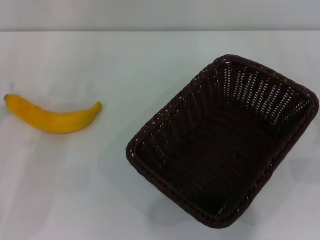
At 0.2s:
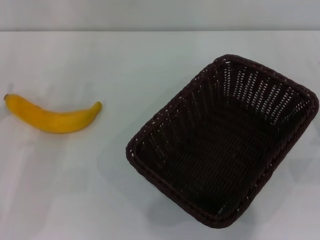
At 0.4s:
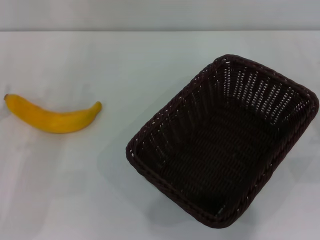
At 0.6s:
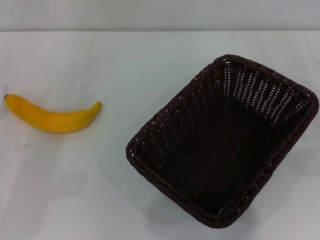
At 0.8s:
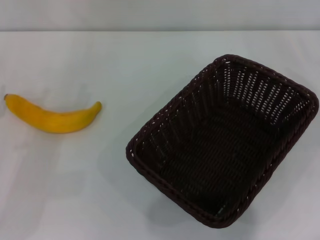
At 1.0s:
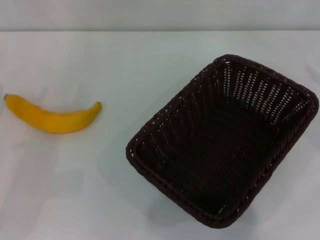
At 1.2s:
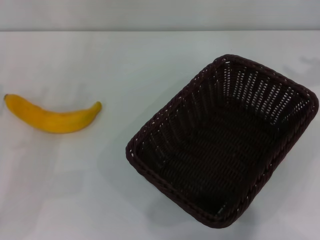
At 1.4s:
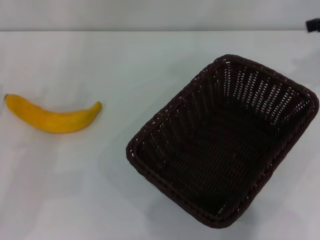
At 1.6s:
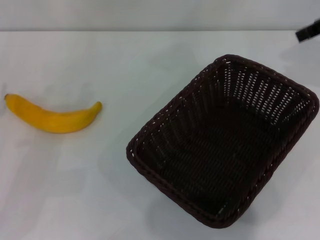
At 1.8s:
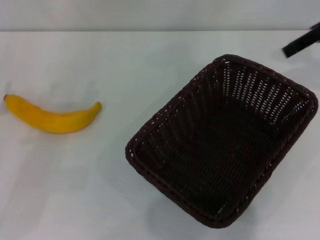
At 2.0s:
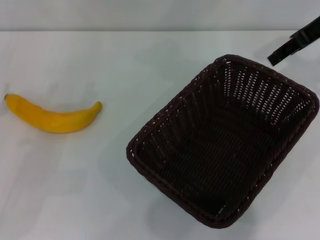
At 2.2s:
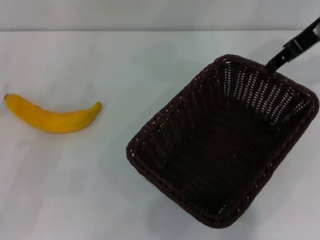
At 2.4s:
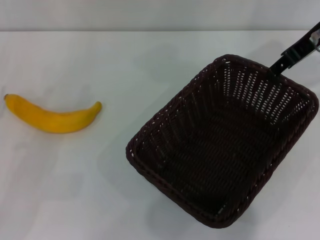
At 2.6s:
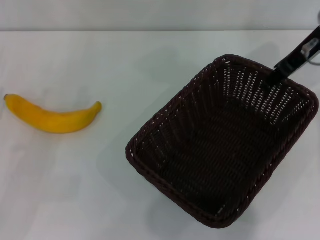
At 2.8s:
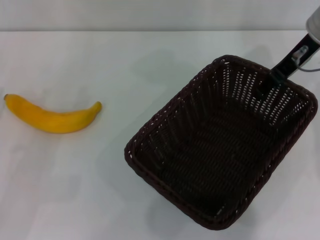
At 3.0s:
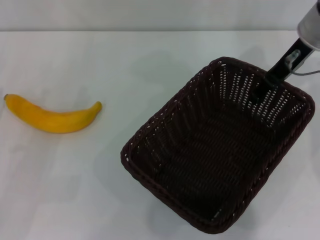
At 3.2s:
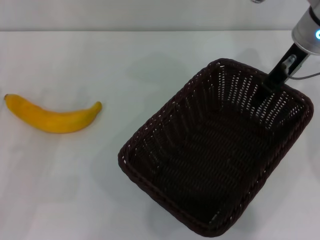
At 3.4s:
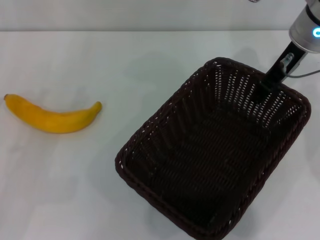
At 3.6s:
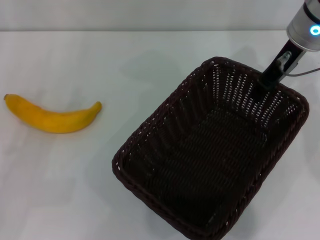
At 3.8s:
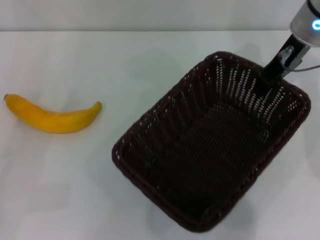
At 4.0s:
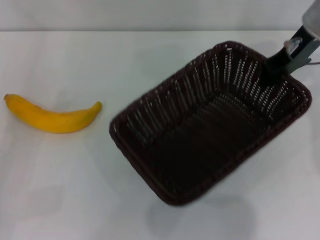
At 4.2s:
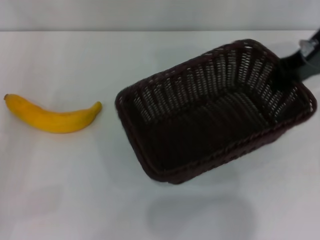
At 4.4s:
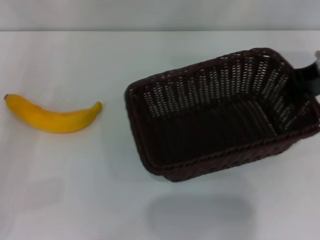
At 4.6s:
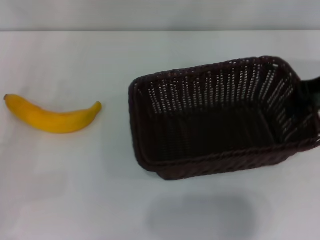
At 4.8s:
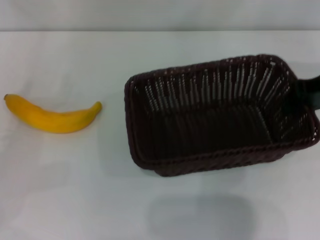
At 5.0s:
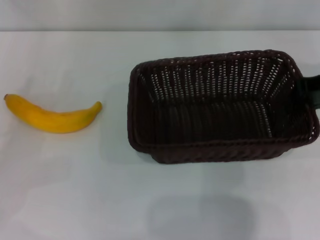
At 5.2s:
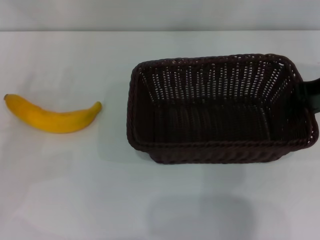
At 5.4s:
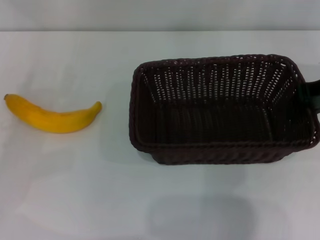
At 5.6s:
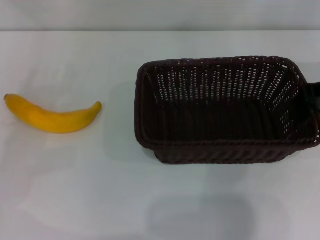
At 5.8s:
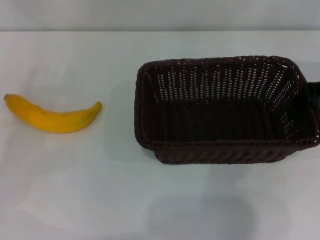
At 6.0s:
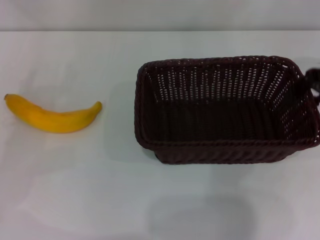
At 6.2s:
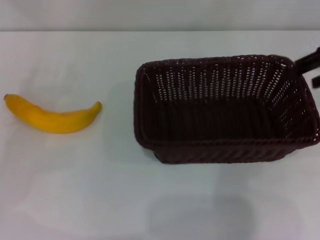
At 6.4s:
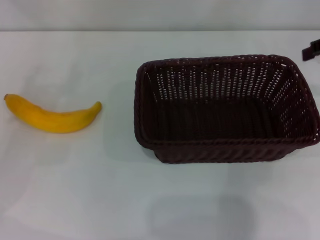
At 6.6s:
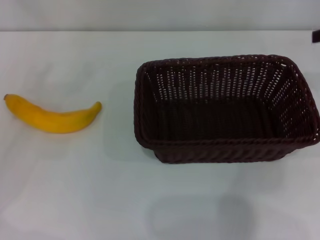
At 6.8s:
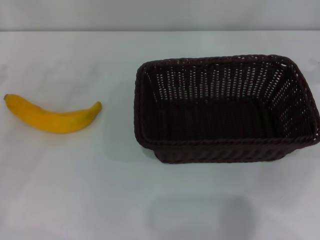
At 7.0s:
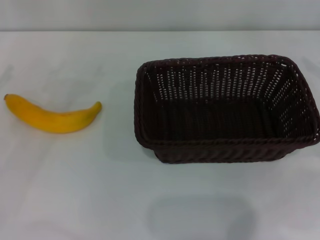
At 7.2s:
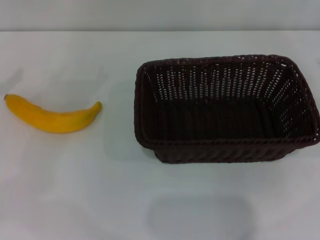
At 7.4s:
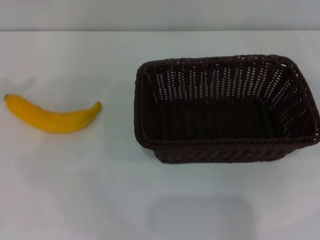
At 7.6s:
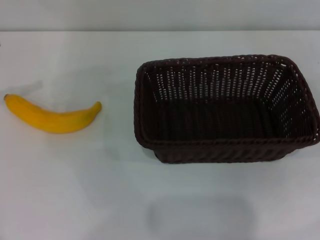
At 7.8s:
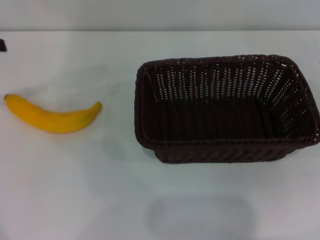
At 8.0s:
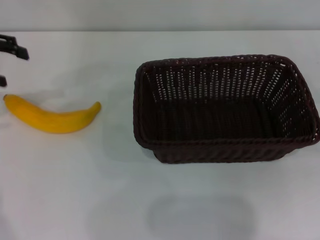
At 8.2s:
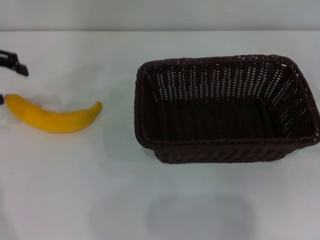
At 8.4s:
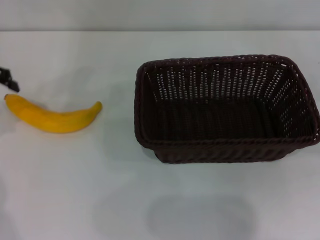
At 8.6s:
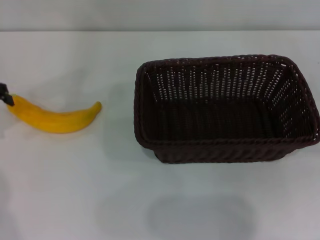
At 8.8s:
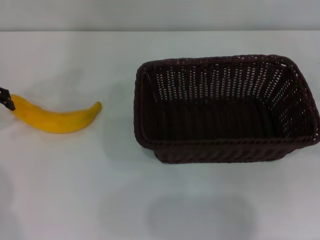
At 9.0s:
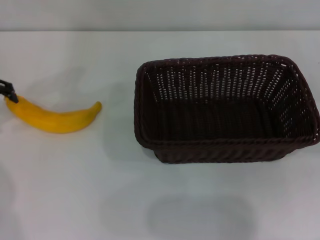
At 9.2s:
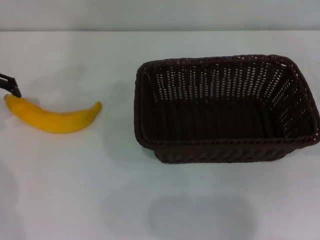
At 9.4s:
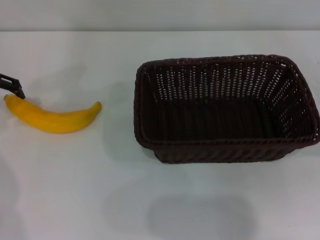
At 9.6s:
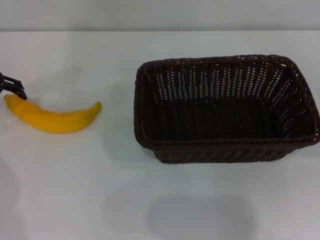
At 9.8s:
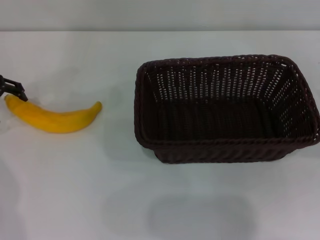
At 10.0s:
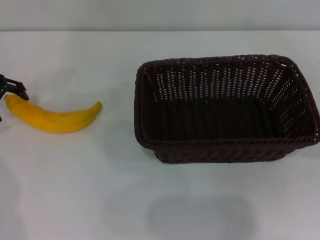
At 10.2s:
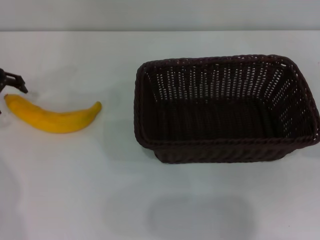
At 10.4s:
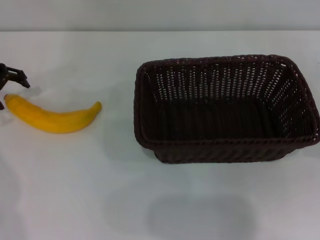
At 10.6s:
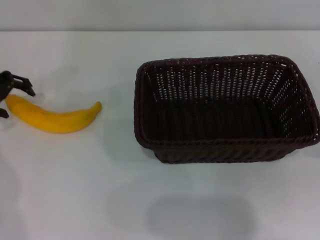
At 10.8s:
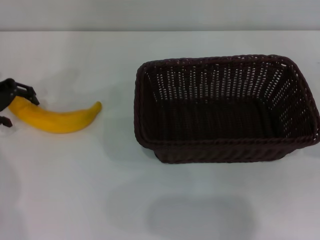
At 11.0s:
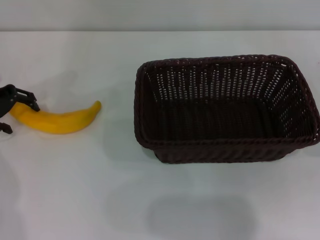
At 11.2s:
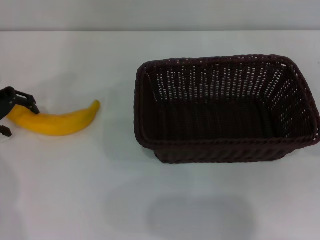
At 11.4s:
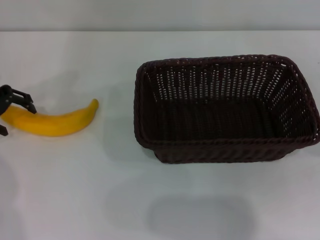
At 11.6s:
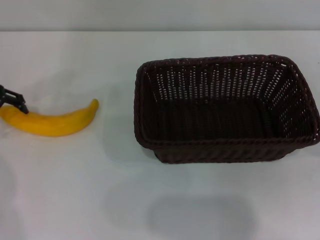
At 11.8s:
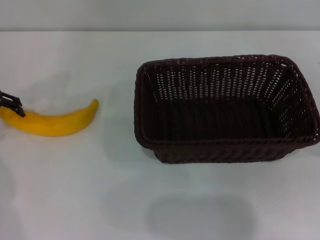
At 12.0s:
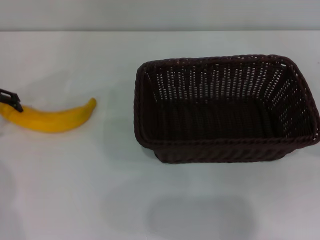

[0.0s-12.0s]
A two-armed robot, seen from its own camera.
Step, 0.0s to 3.4s: Pick up the dark basket with the right gripper.
Step, 3.6s to 6.2s: Place the dark basket in the center of view with the right gripper.
0.0s to 1.6s: The right gripper moves upward and forward, roughly 30 cm.
1.6s to 3.0s: The right gripper goes about 10 cm to the left and downward.
3.0s to 4.4s: The right gripper moves to the right, some 5 cm, and closes its fingers. Meanwhile the left gripper changes place by about 5 cm.
4.4s to 6.0s: The right gripper opens up. The left gripper heads forward, covering approximately 5 cm.
6.0s to 7.6s: The right gripper shifts about 20 cm to the right, downward and backward, and opens.
9.0s to 12.0s: The grippers stay close to where they were, moving slightly.

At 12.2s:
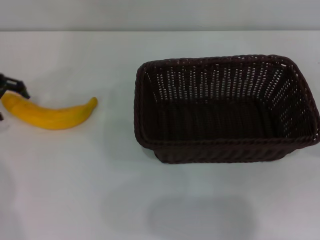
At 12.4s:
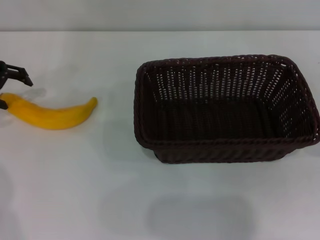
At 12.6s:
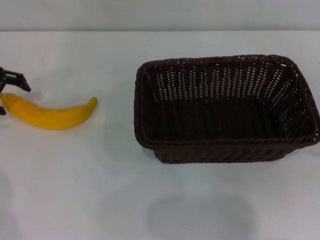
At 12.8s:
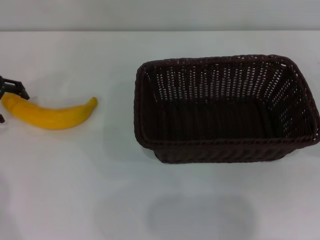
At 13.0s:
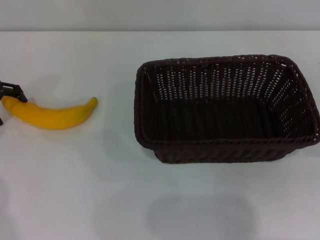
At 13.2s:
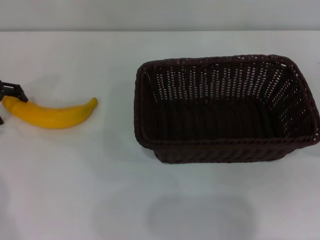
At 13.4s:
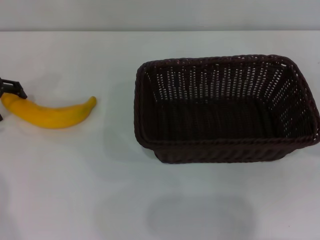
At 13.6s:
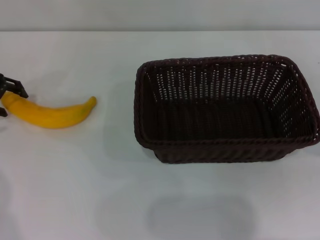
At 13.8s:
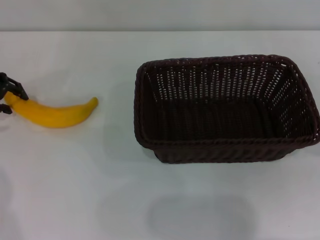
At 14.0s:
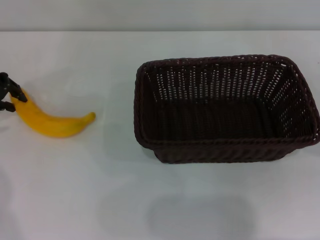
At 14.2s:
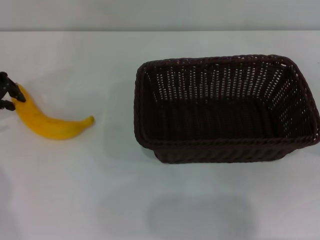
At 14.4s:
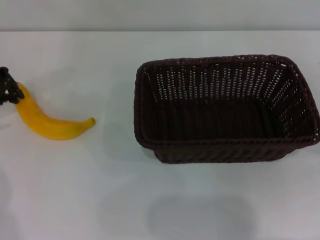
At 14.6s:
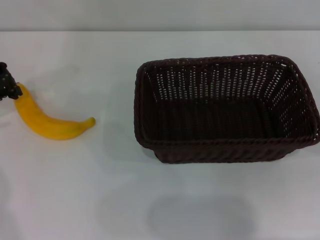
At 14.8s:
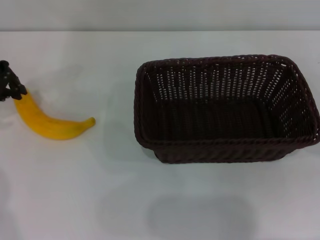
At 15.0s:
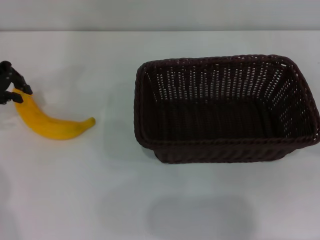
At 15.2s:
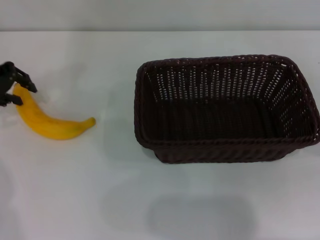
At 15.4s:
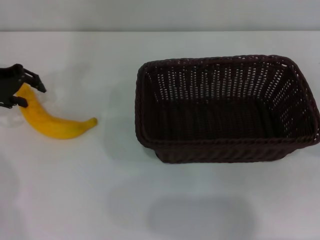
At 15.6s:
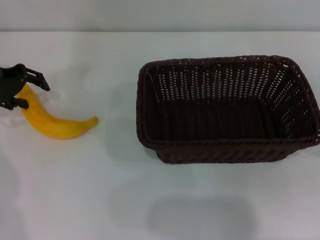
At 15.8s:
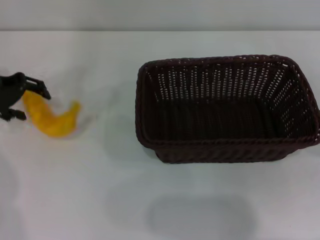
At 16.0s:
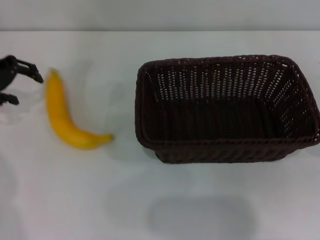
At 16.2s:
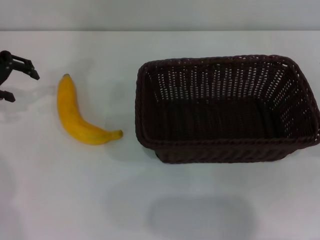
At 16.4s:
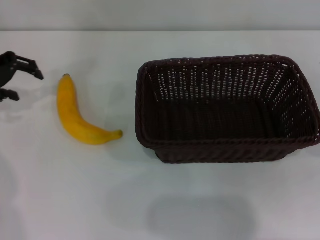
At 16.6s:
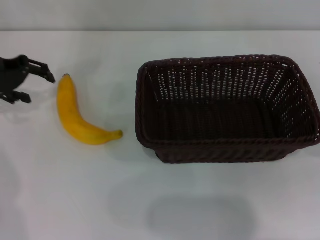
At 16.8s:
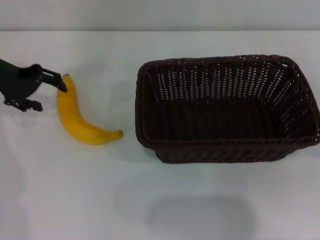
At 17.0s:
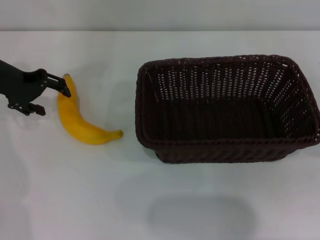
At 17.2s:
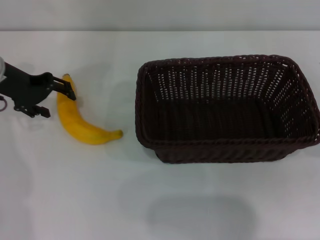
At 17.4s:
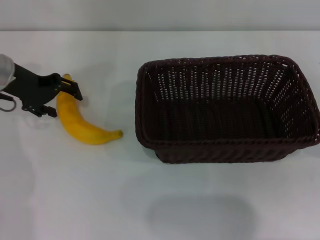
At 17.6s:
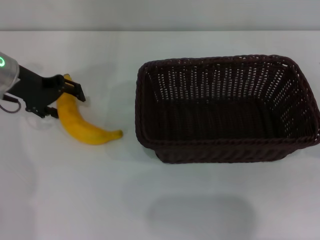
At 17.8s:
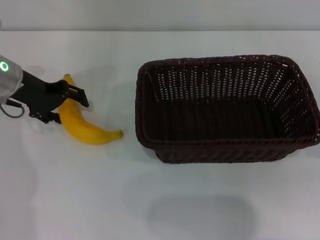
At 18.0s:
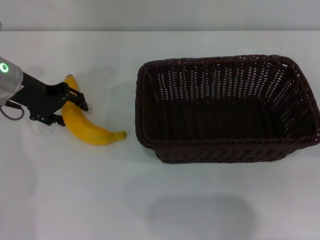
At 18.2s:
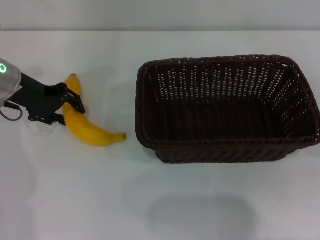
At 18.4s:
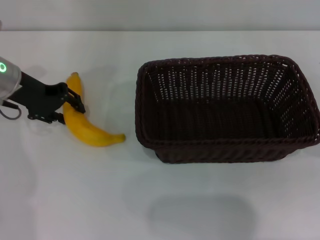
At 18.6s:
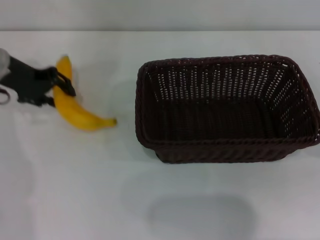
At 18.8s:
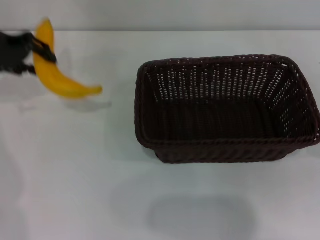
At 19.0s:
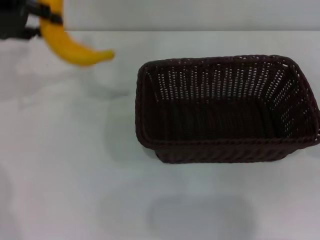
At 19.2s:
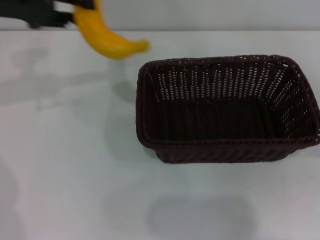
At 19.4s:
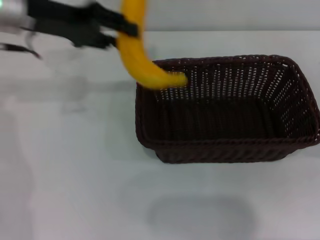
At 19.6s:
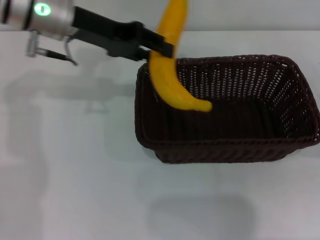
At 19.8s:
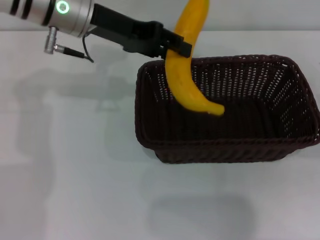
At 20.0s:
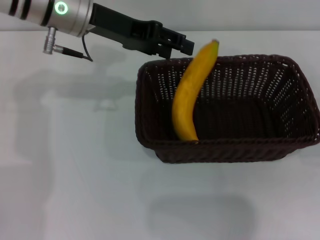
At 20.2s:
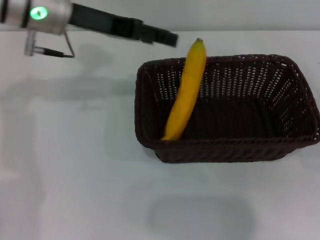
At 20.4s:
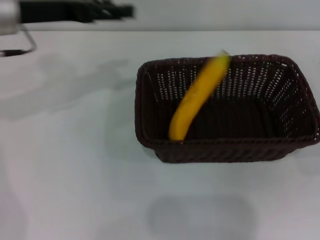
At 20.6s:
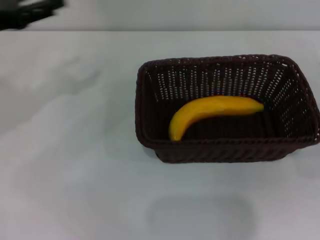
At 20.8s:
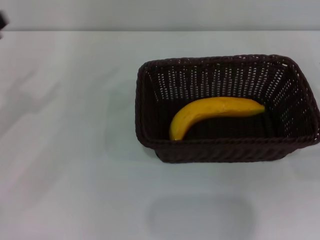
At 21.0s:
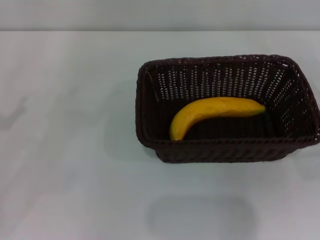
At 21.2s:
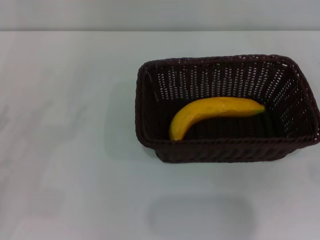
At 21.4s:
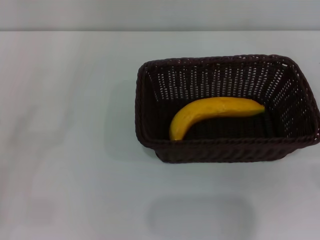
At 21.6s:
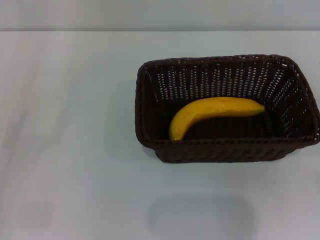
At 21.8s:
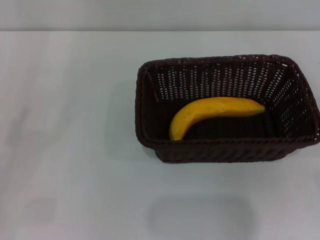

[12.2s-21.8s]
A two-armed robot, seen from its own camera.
Step, 12.2s to 18.6s: Pick up the banana with the left gripper.
Step, 18.8s to 20.0s: Place the banana into the dark basket with the left gripper.
13.8s to 15.4s: The left gripper closes and opens again.
15.4s to 17.0s: The left gripper opens its fingers.
17.0s to 18.6s: The left gripper closes its fingers.
18.6s to 20.2s: The left gripper shifts some 10 cm to the right and upward, and opens.
20.2s to 21.8s: The left gripper shifts about 35 cm backward, to the left and downward.

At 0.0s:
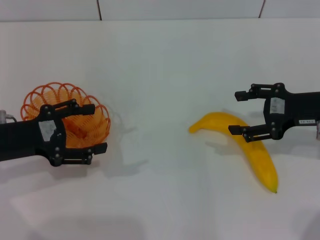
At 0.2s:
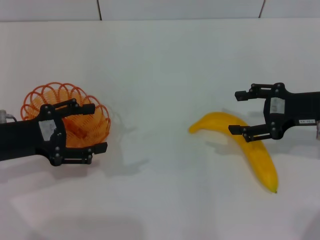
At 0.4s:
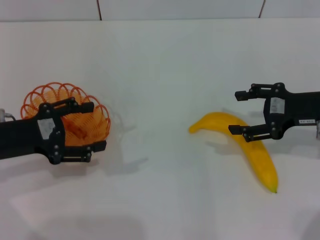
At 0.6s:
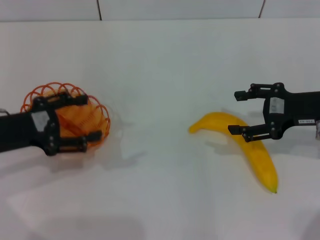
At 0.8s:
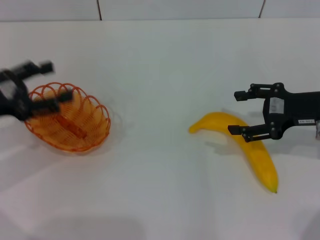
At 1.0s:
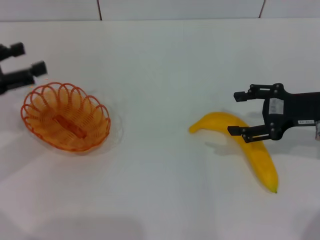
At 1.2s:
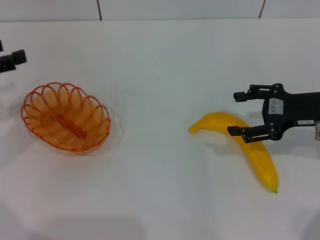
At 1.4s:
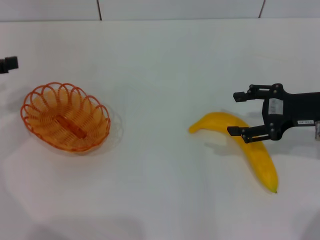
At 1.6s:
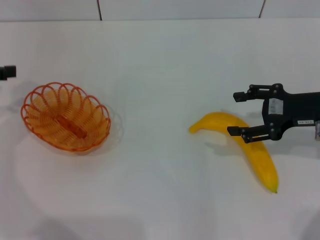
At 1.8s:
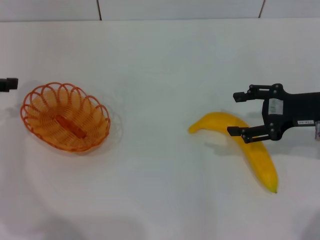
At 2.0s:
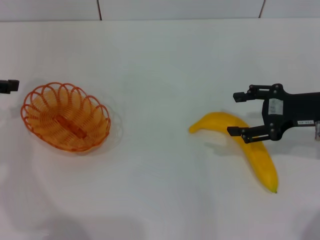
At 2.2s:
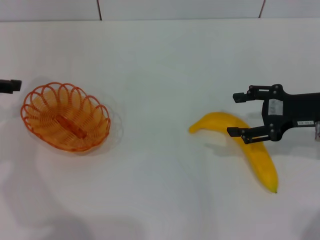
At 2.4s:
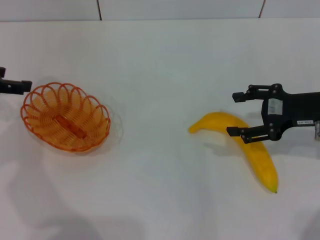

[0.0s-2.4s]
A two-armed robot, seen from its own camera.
0.0s to 1.2s: The left gripper moves to the left and upward, approximately 10 cm.
